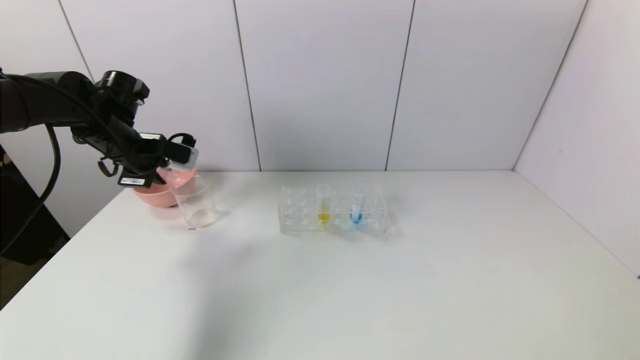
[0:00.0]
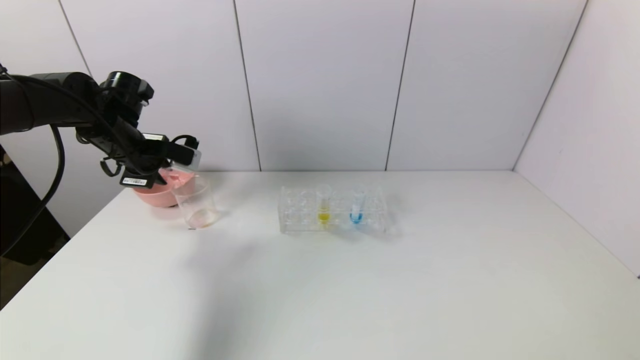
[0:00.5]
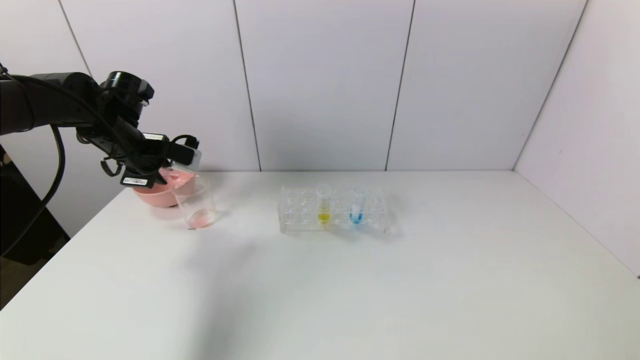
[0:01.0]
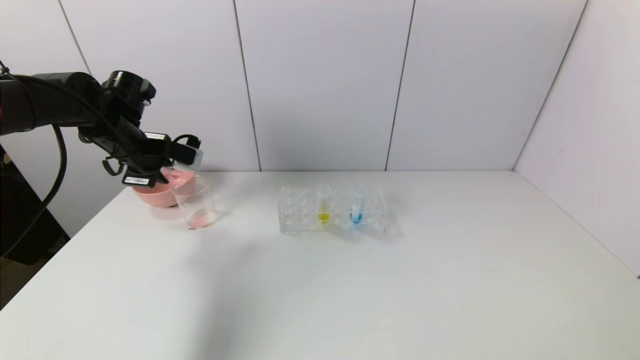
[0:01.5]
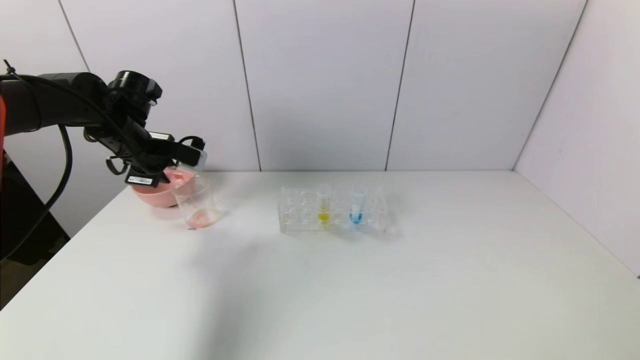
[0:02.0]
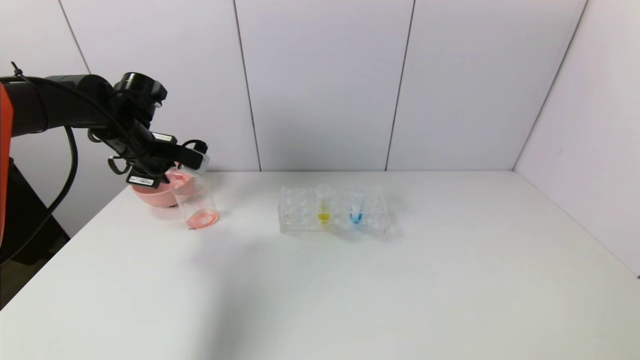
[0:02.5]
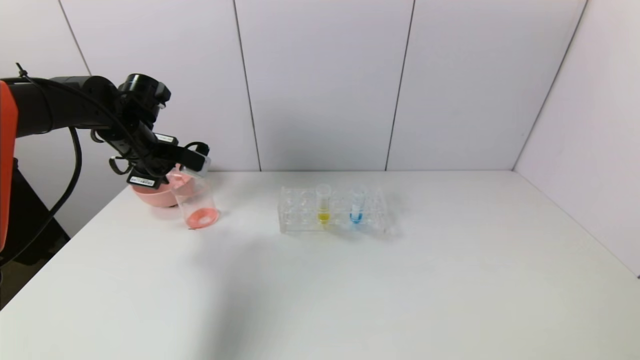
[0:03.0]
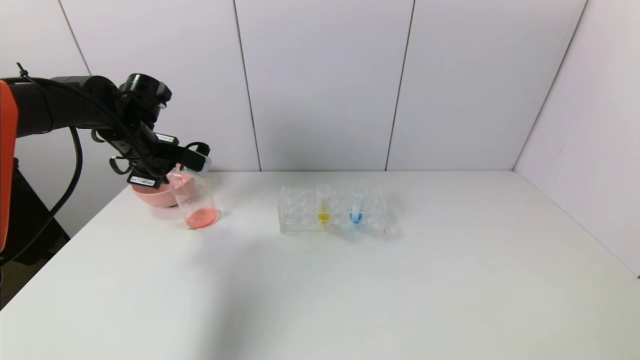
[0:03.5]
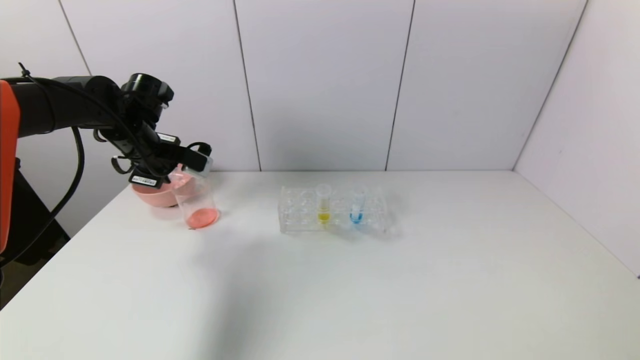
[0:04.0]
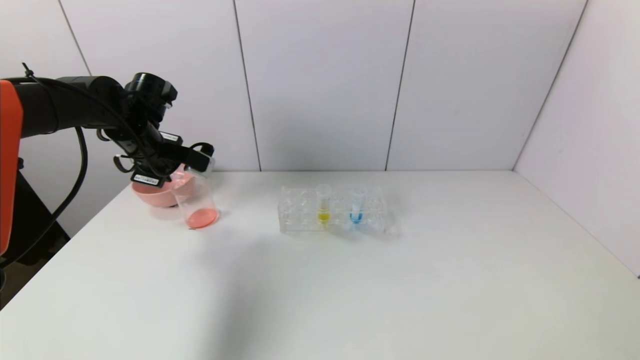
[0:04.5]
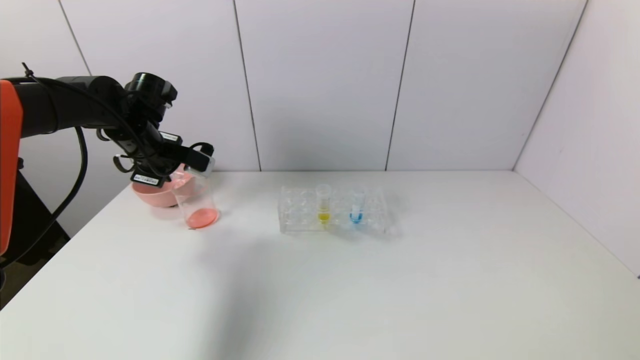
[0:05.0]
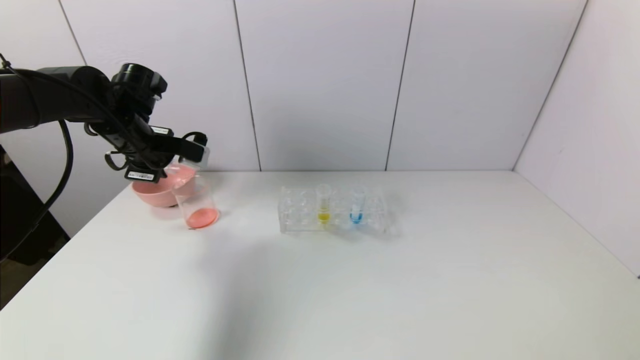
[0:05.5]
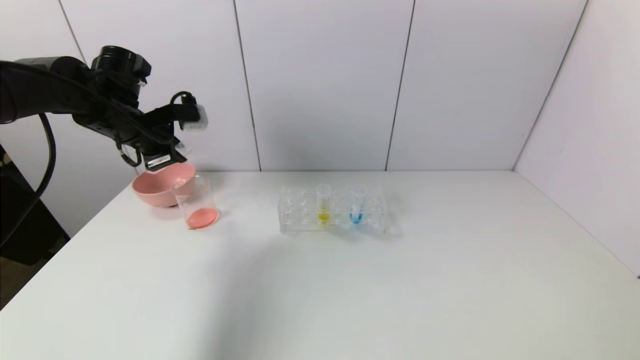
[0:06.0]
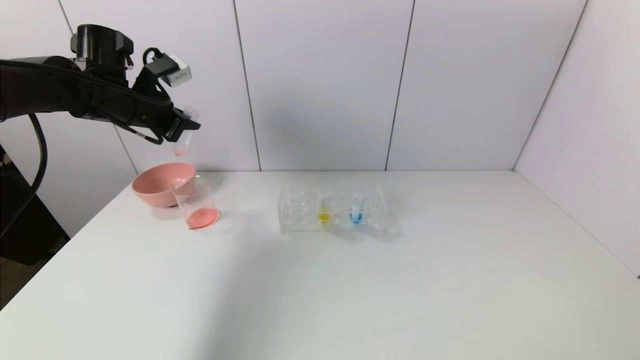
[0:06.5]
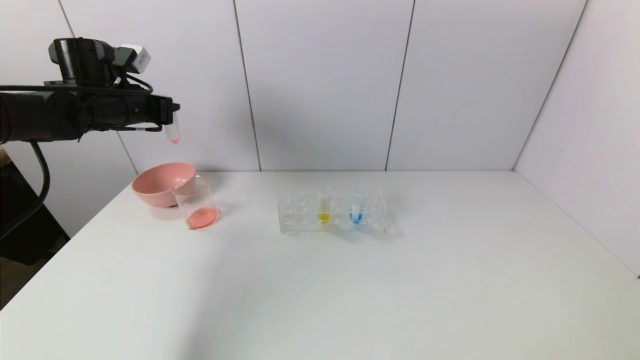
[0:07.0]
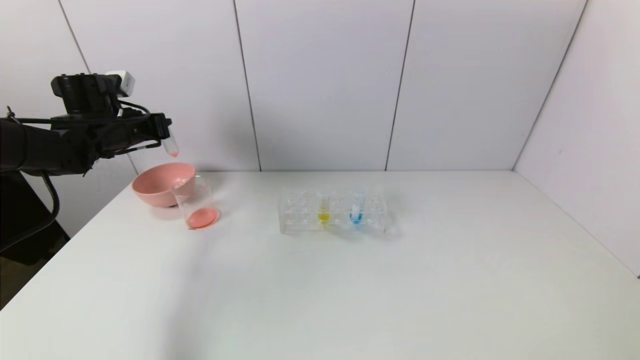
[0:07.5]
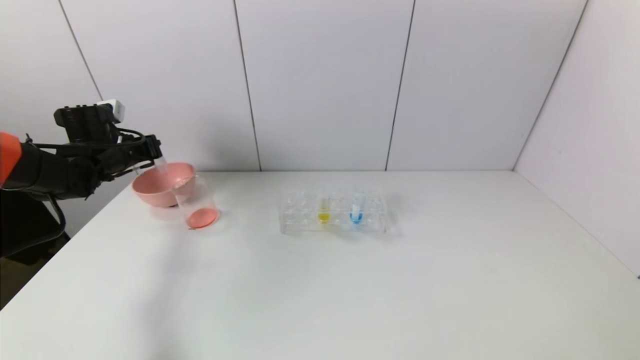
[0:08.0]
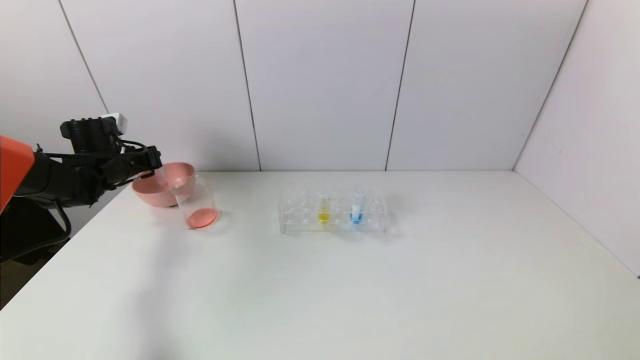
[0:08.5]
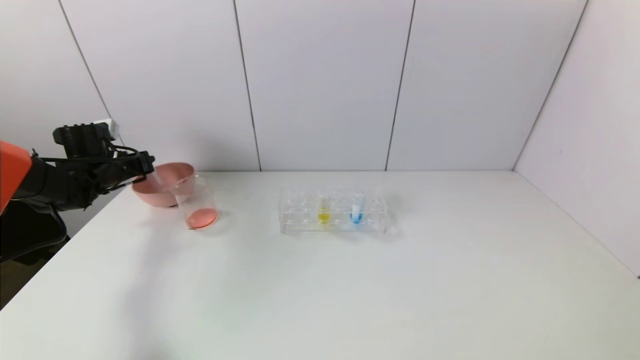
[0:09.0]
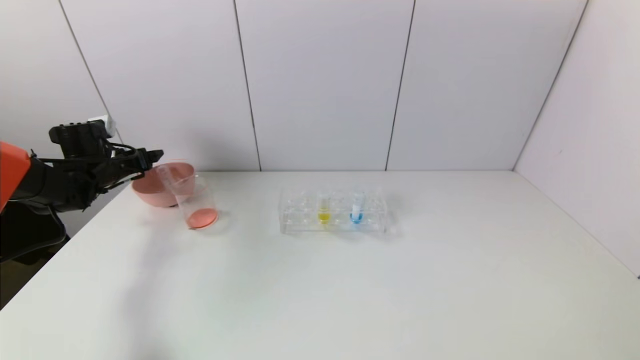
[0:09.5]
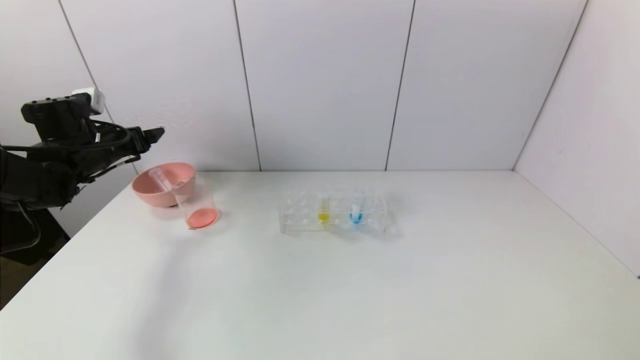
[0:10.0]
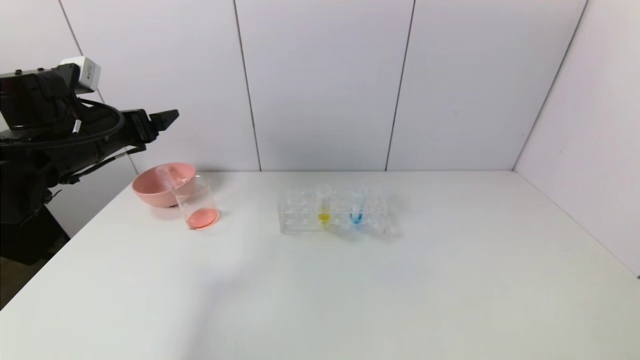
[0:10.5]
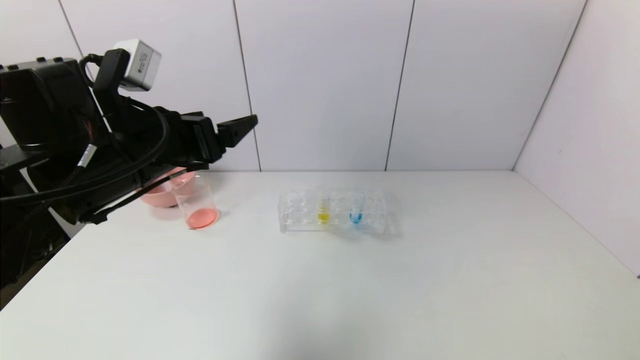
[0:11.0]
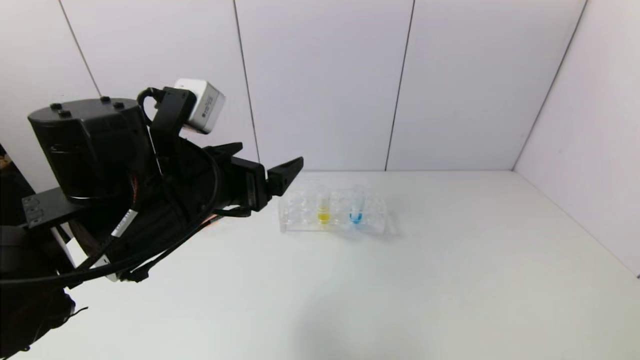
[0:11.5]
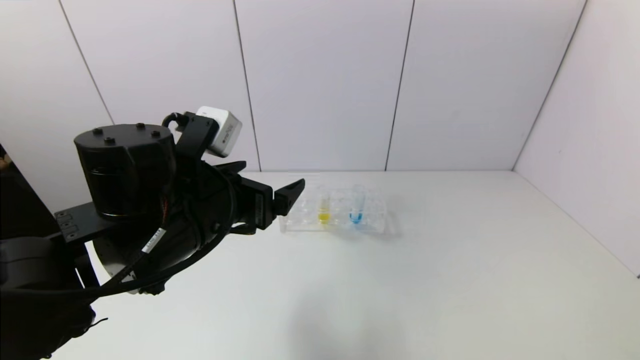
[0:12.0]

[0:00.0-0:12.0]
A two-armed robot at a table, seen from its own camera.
Task of the whole recording: pick up the test tube with yellow pigment and the test tube with red pigment by grippers and pour them into the beaker.
Step, 0:00.0 to 0:04.5: Pour the red reagent into the graduated cylinder with the left gripper.
Step, 0:05.0 to 0:09.5: Place the test tube into the pink bowl with the left gripper.
0:00.0 to 0:04.0: The grippers stay close to where they were, moving slightly.
0:06.0 to 0:08.0: The left gripper moves downward and to the left, about 10 cm.
0:08.0 to 0:10.0: The left gripper changes place by roughly 5 cm, and opens its fingers.
0:10.0 to 0:12.0: The left gripper shifts about 30 cm to the right and backward.

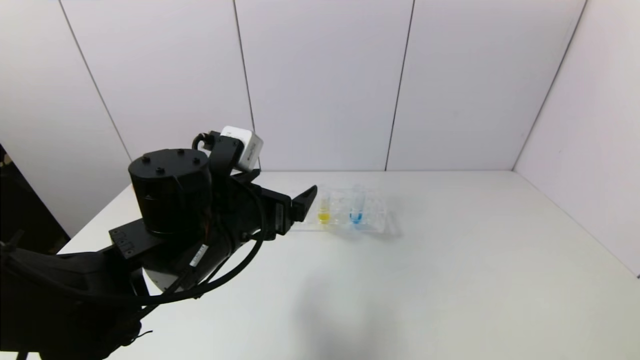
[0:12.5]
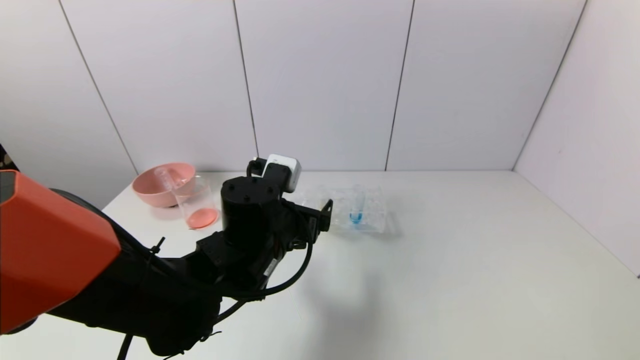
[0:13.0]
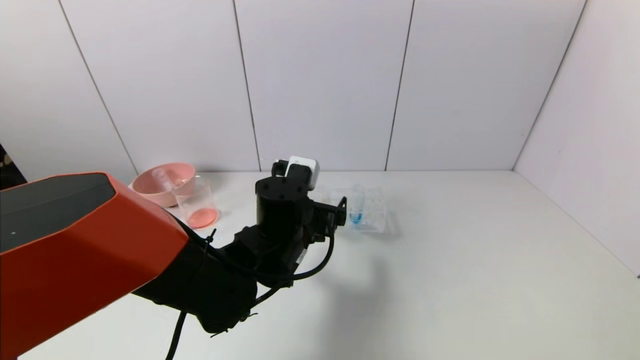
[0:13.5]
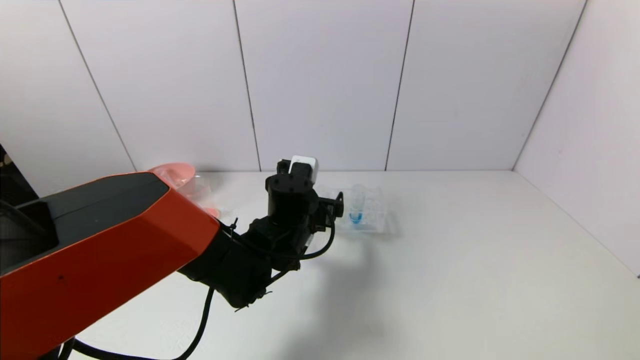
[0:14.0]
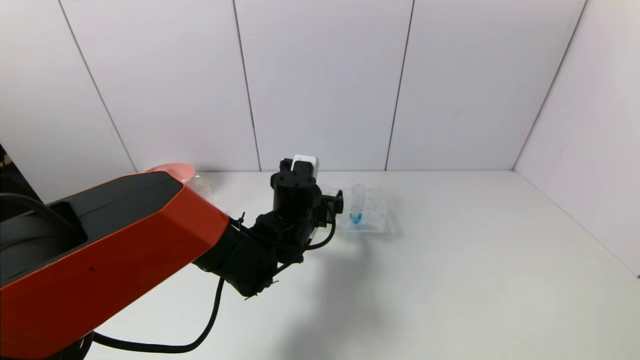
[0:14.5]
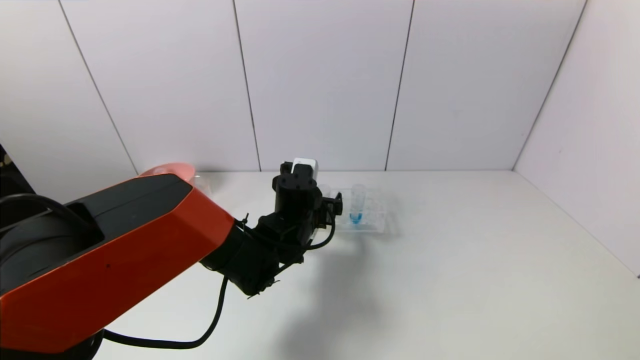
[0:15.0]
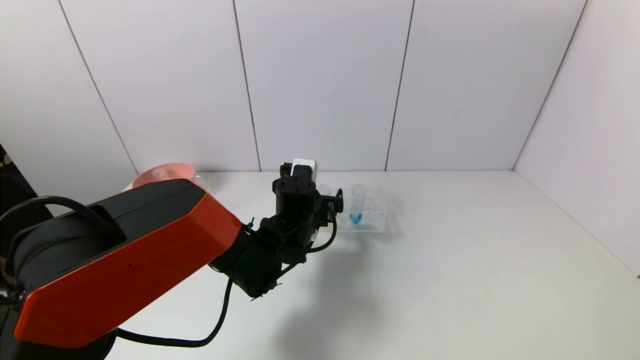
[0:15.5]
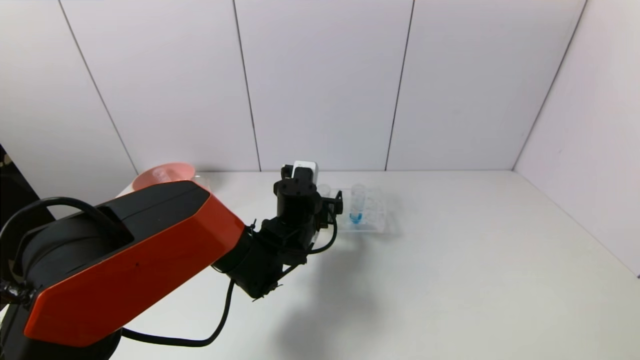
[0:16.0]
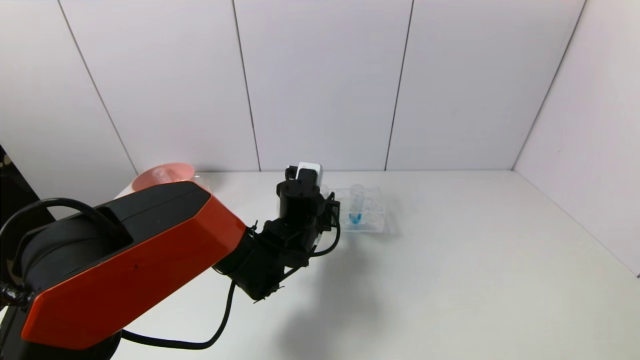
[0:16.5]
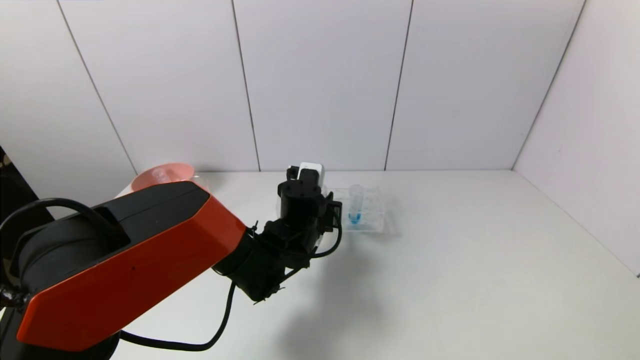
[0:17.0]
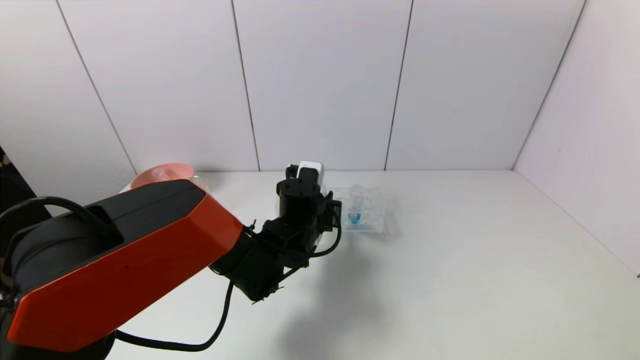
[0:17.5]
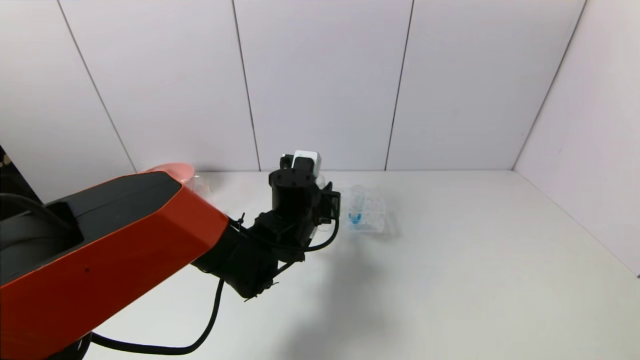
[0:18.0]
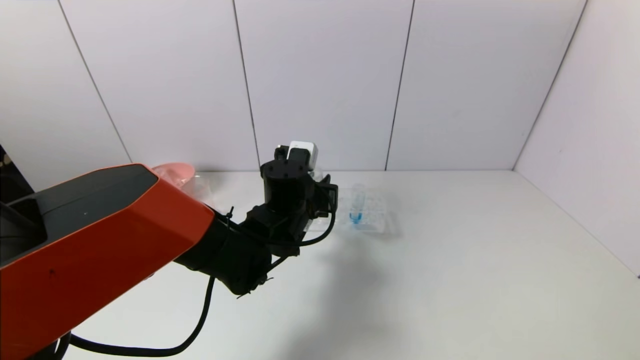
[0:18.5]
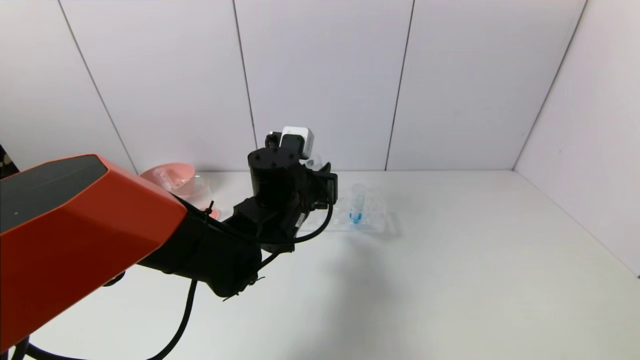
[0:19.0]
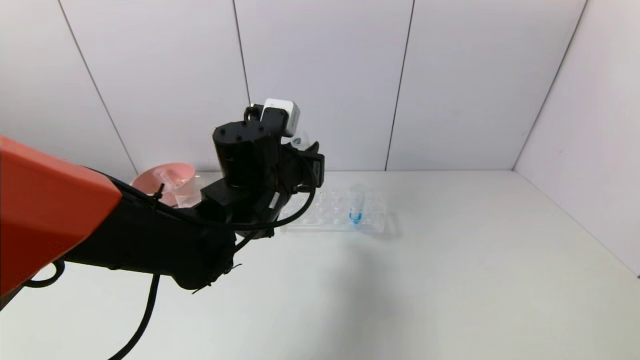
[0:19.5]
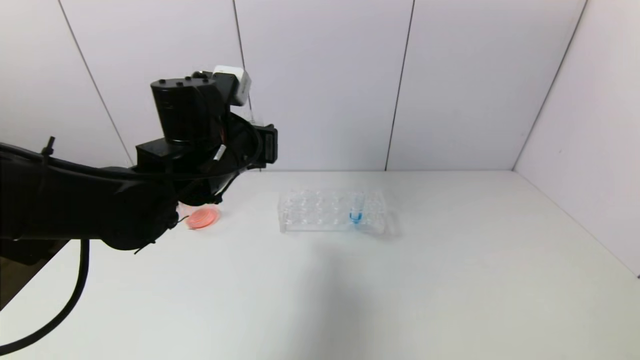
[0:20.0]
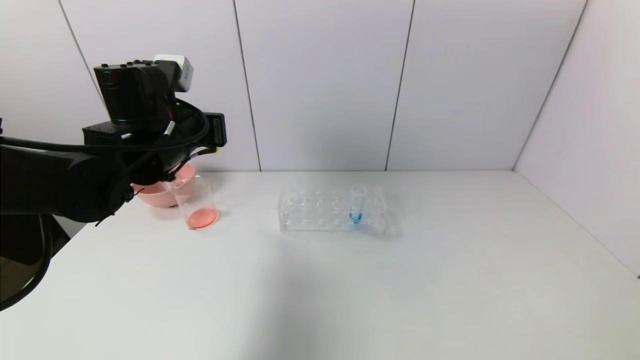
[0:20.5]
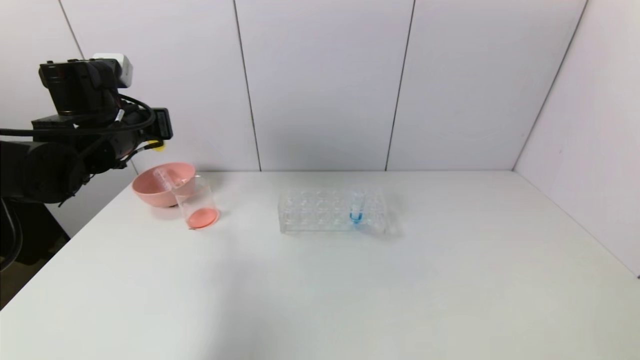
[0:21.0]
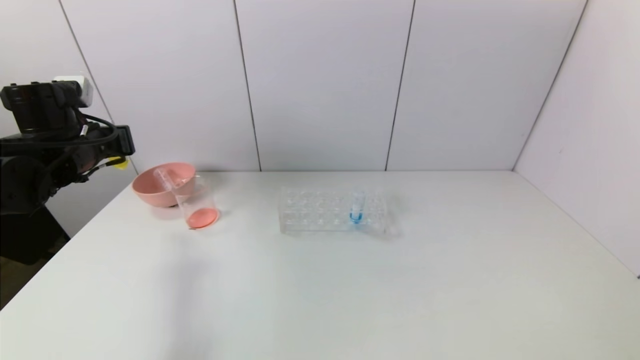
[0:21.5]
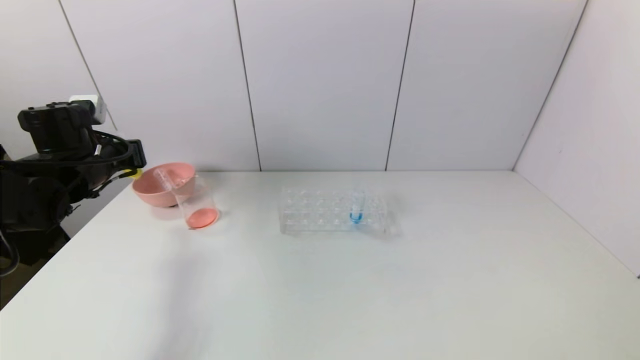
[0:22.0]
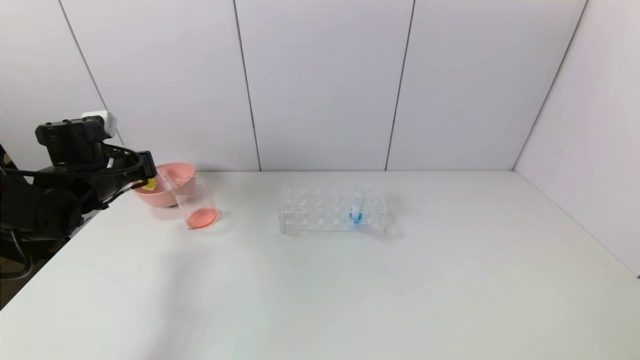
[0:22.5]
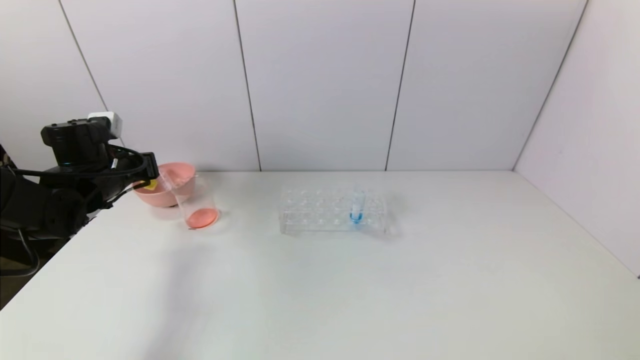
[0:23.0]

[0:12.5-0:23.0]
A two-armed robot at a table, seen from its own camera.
Task of the whole recording: pick up the test tube with yellow pigment and the test tube with red pigment by grippers and pour them into the beaker.
Step, 0:12.5 to 0:16.5: Grasp the yellow reagent with the left gripper.
0:12.5 to 0:14.5: The left gripper moves forward, downward and to the right, roughly 15 cm.
0:14.5 to 0:16.5: The left gripper closes its fingers.
0:16.5 to 0:19.0: The left gripper is displaced upward by approximately 10 cm.
0:19.0 to 0:21.0: The left gripper goes roughly 25 cm to the left.
0:21.0 to 0:23.0: The left gripper heads downward and to the left, covering about 10 cm.
